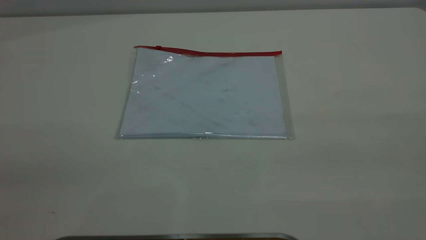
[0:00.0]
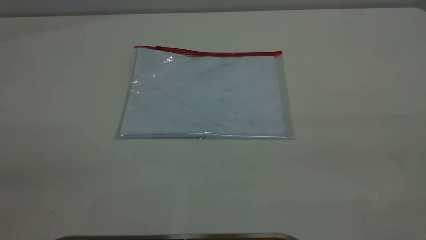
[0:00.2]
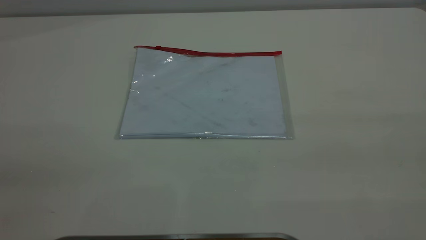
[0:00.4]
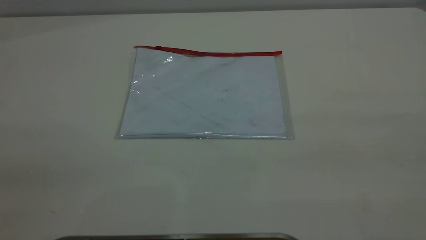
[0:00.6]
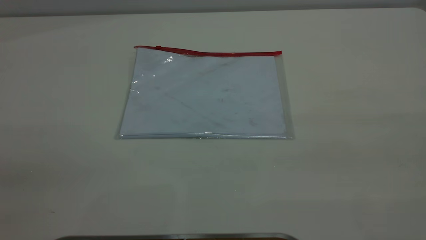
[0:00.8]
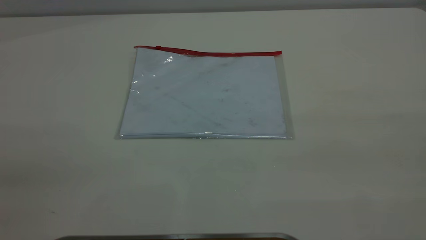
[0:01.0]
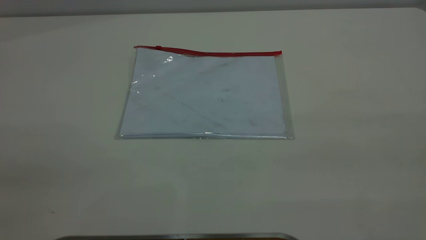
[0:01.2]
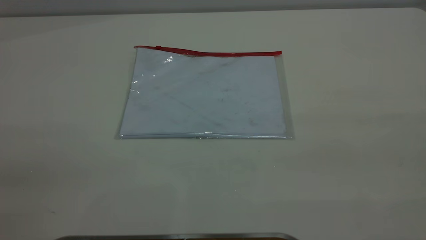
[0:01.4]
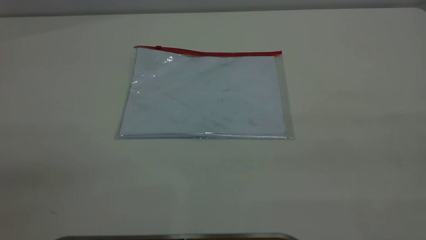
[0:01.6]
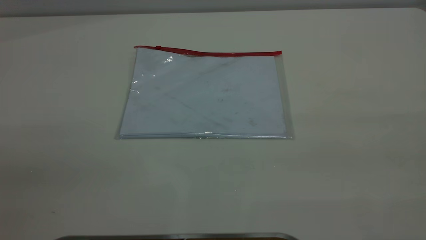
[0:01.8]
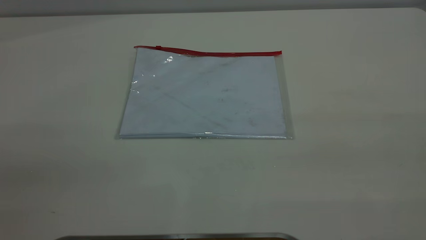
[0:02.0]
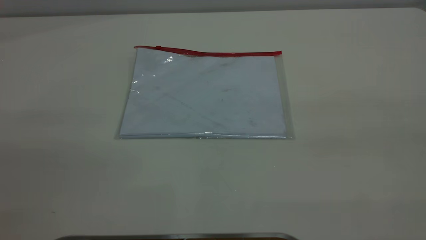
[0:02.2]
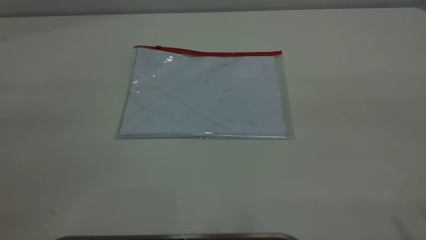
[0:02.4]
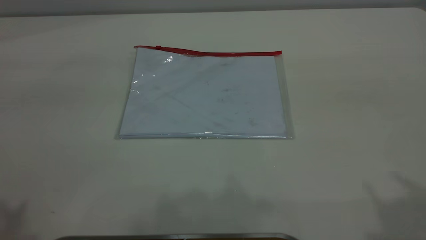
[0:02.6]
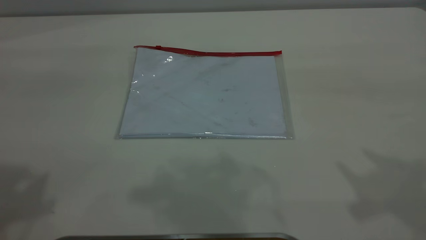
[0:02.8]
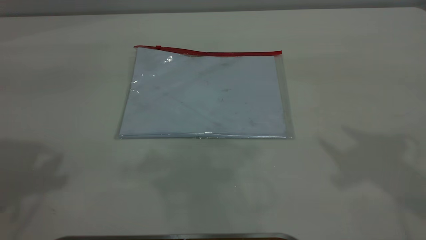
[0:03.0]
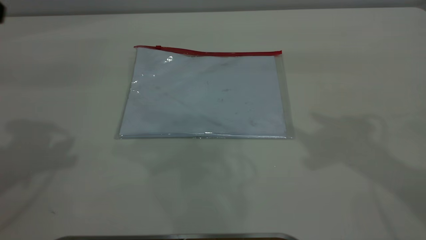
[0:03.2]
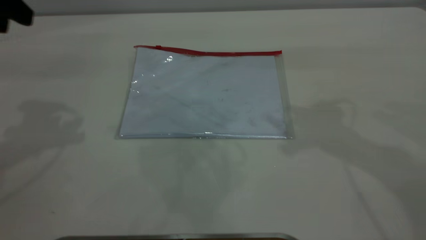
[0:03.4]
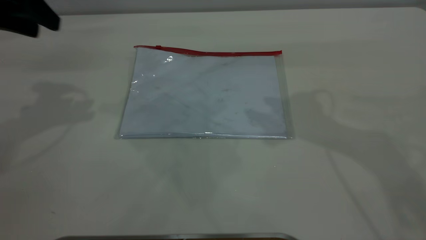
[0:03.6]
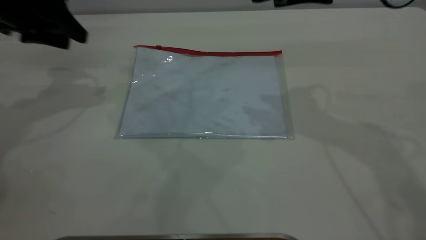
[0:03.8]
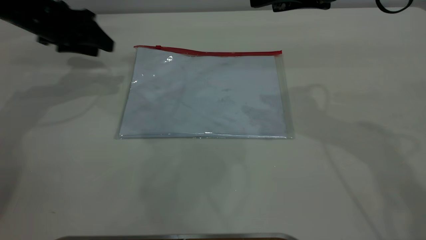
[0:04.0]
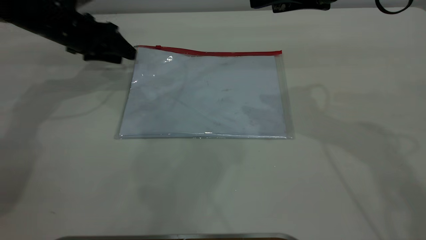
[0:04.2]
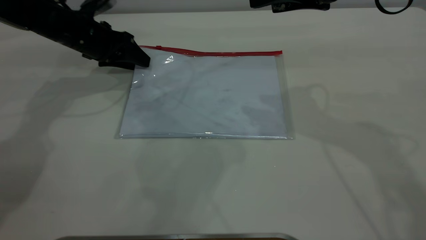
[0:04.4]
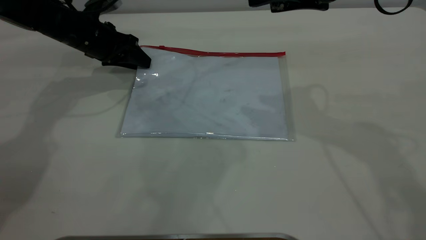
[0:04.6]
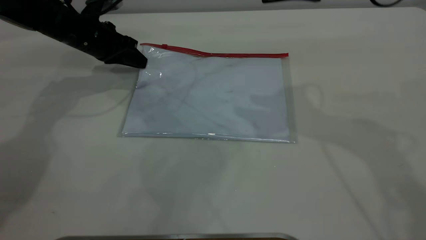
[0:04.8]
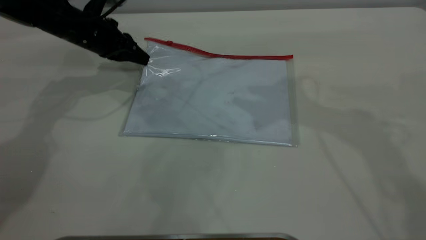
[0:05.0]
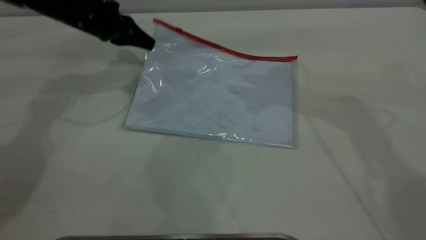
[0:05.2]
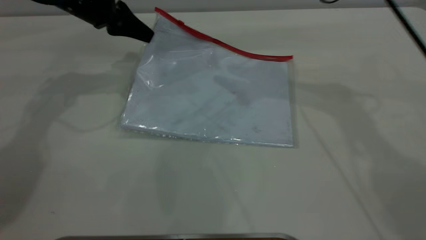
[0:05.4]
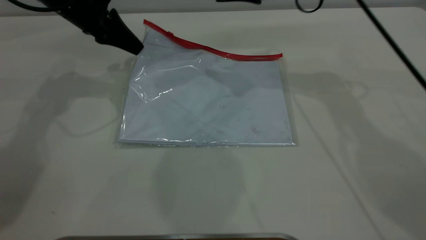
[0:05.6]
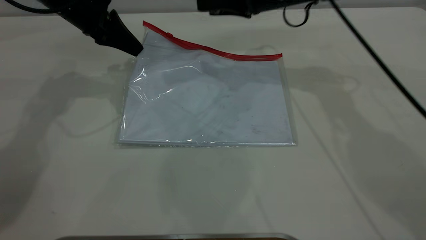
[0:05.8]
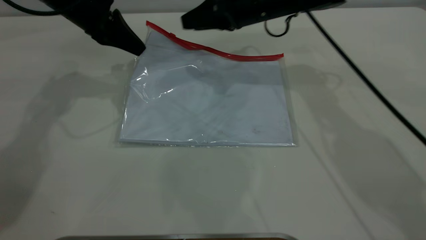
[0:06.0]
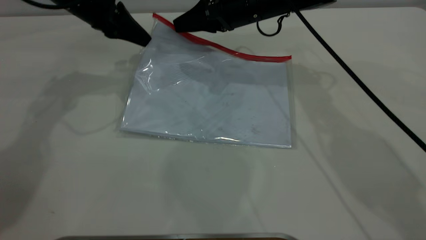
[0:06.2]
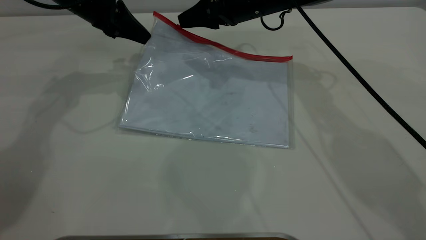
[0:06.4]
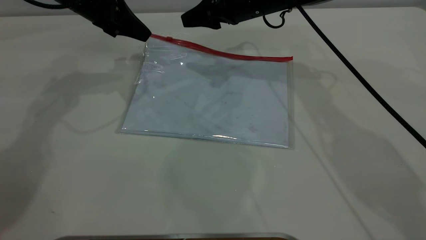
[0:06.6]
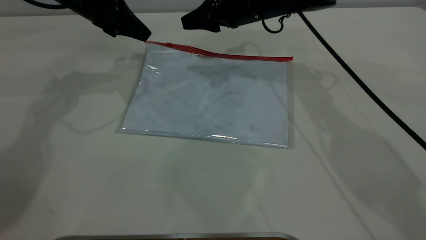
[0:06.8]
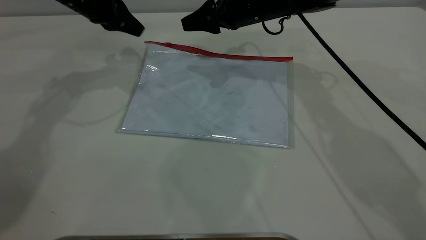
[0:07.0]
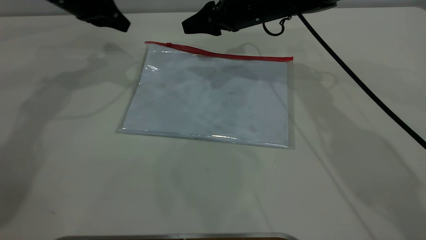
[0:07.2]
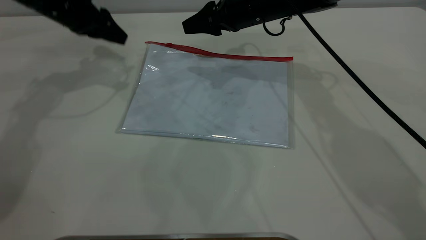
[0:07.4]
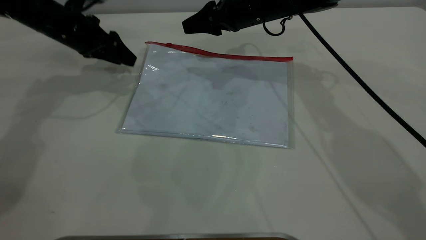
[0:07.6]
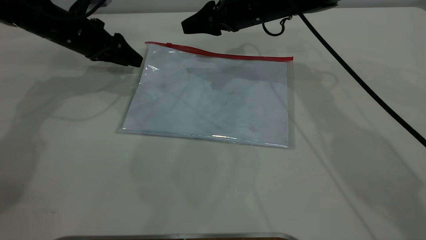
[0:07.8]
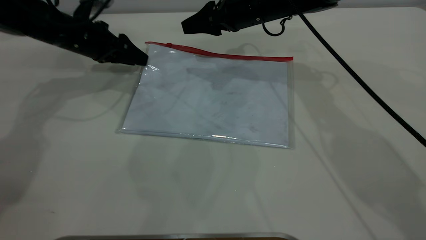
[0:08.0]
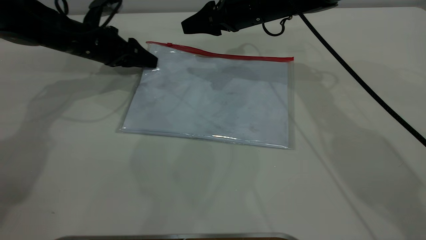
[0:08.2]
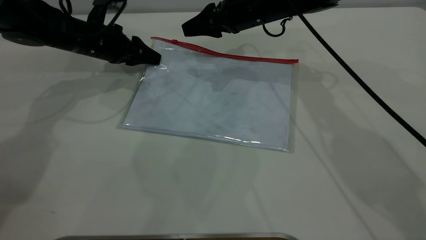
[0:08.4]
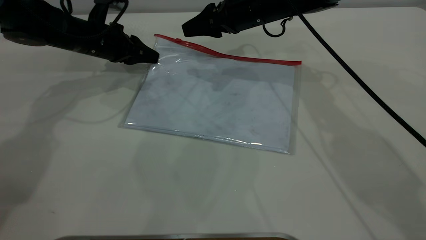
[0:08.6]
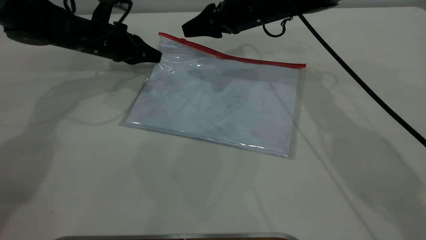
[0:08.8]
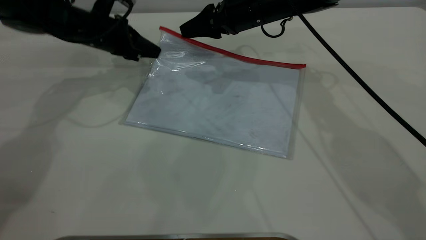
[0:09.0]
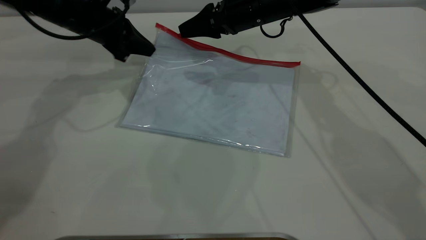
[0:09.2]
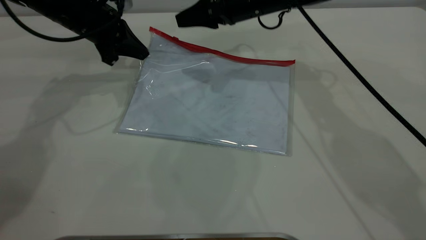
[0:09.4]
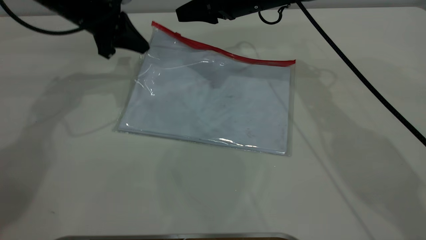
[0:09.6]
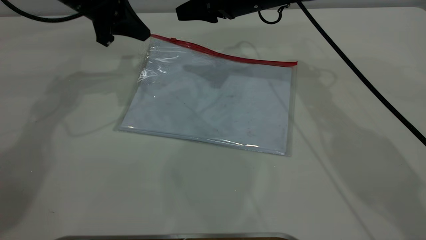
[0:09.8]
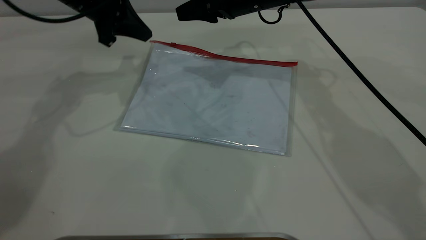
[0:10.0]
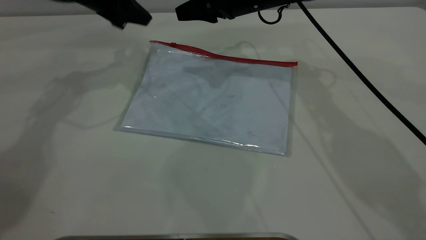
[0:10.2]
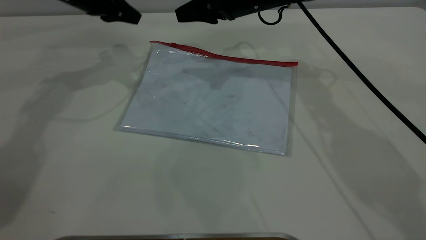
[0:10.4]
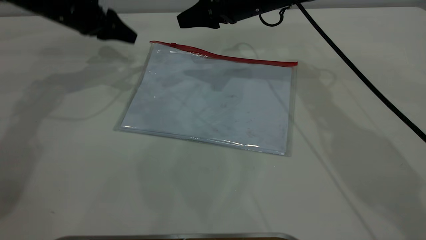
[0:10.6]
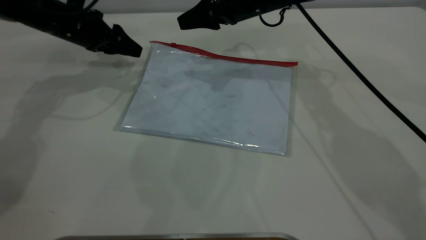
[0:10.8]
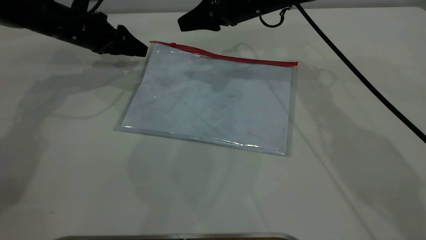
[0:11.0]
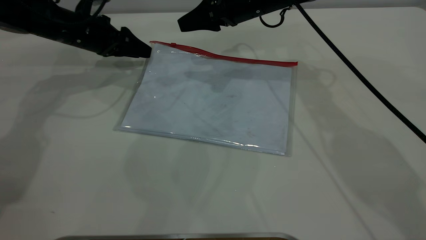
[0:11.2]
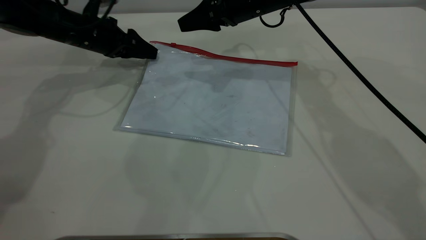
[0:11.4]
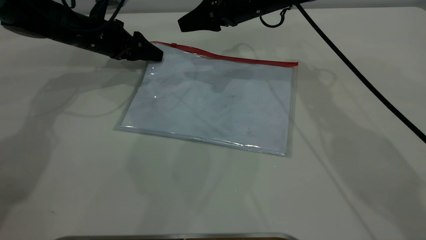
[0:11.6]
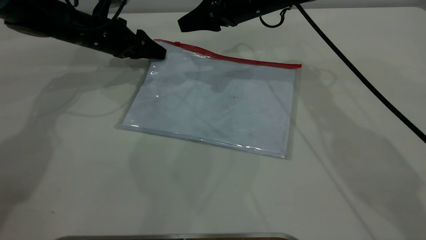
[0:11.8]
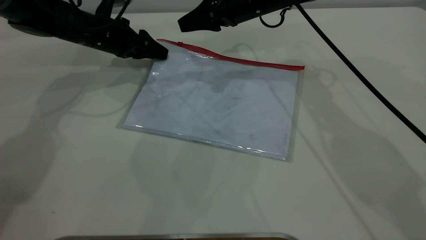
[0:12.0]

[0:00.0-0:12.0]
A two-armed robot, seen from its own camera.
0:00.0 to 0:01.6: The two grippers keep their place.
0:03.0 to 0:04.4: The right gripper is displaced forward, downward and to the left by some 15 cm, while the left gripper is displaced downward and forward by some 35 cm.
0:04.4 to 0:06.0: The left gripper is displaced upward by some 10 cm, and closes its fingers; the right gripper travels forward, downward and to the left by approximately 20 cm.
0:06.0 to 0:07.6: The left gripper moves downward, roughly 5 cm, and opens up.
0:07.6 to 0:09.0: The left gripper closes.
0:09.0 to 0:10.4: The left gripper travels upward by roughly 5 cm, and opens its fingers.
0:10.4 to 0:12.0: The left gripper heads downward, covering some 10 cm, and opens its fingers.

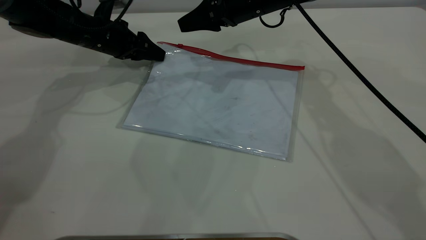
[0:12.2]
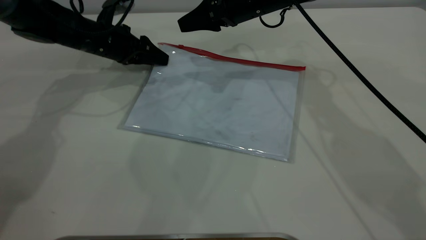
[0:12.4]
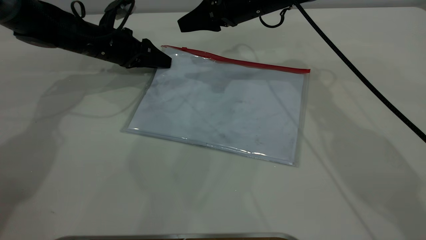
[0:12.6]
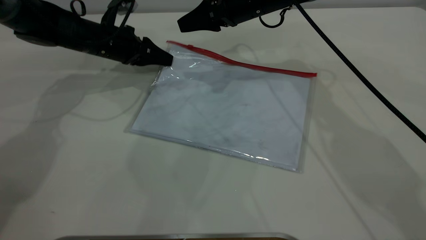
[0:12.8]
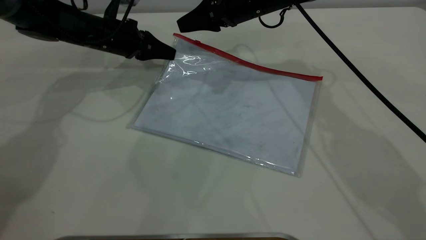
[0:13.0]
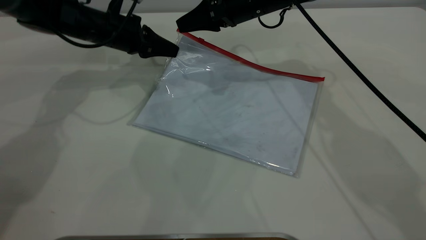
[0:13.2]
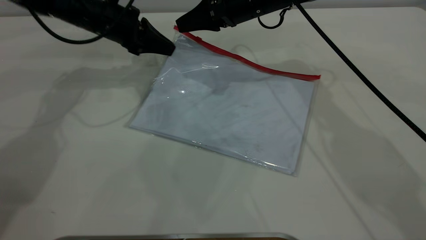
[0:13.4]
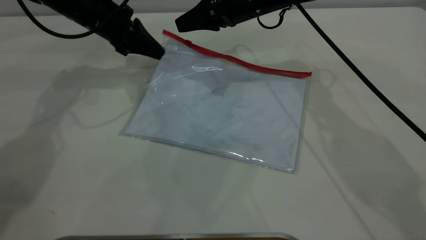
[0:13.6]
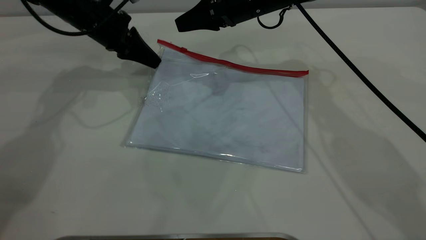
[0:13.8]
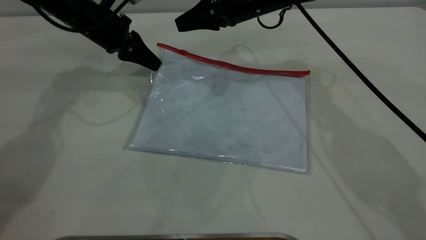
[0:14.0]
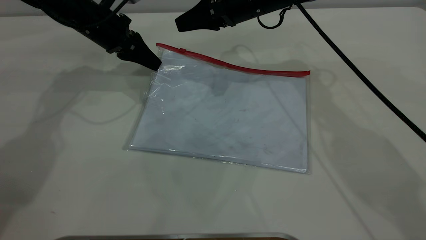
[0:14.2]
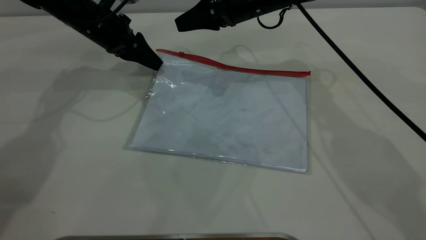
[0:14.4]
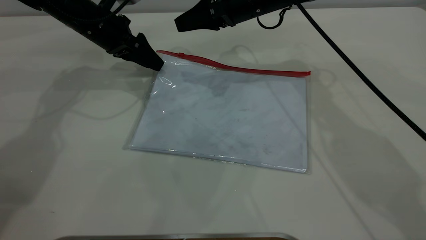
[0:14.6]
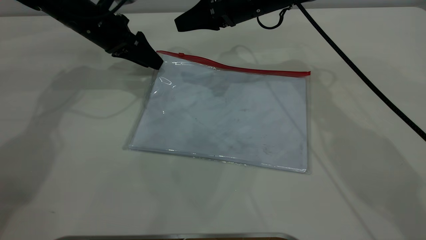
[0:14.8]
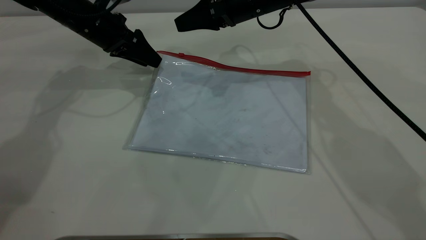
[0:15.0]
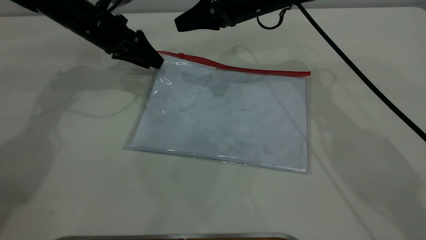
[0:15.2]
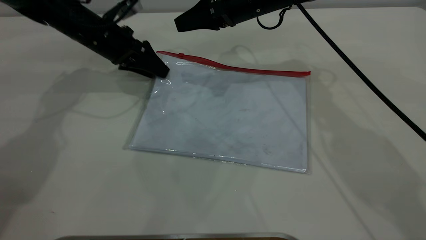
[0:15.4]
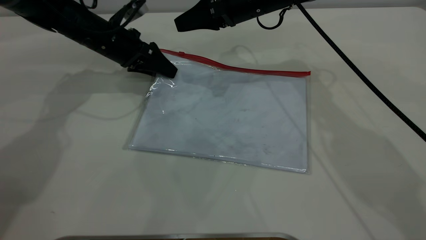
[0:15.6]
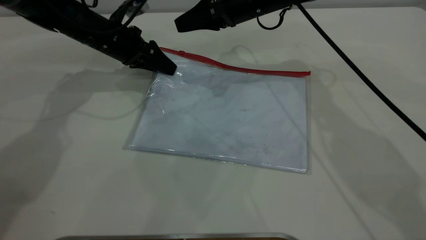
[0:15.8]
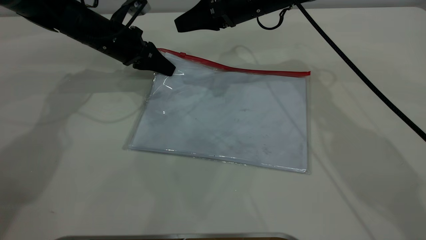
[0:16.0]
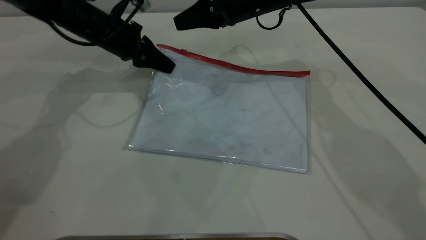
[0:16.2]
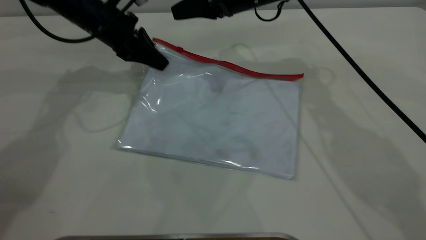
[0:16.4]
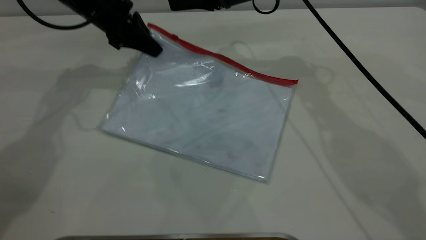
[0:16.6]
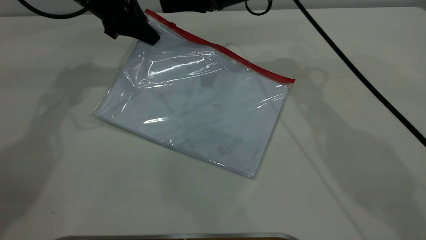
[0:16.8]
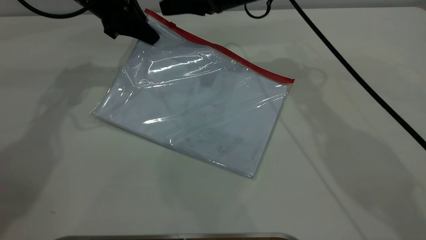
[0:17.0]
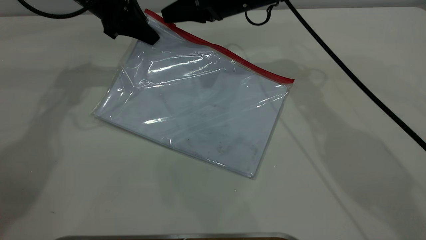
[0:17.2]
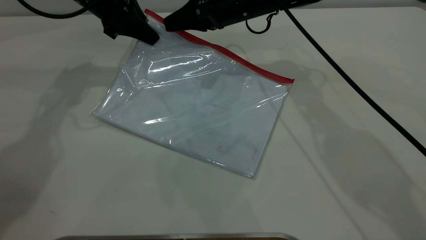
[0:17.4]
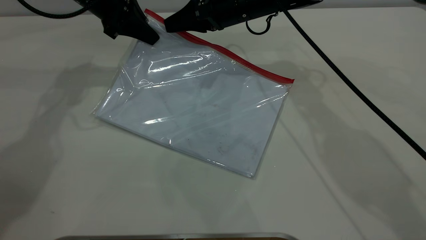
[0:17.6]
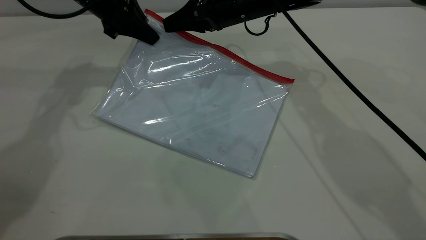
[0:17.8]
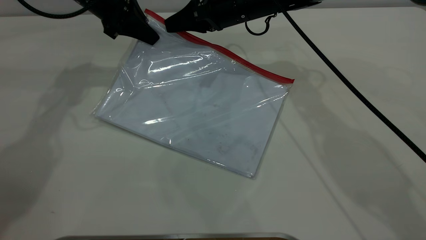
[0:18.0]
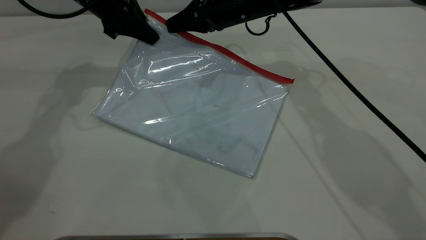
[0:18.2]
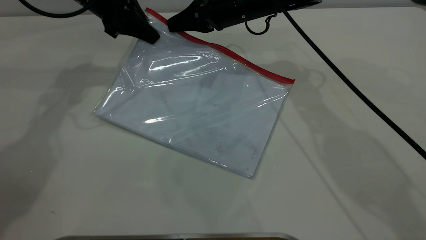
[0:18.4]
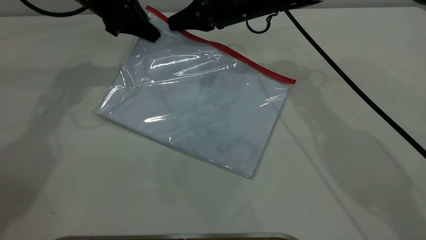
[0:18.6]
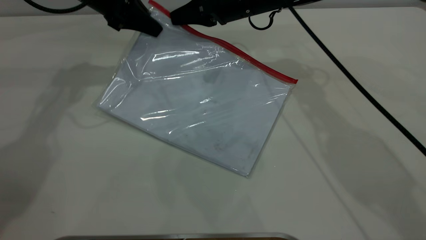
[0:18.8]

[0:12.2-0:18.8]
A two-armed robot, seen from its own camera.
Step, 0:12.2 to 0:16.8: Pick up the transparent plastic bag with the left gripper.
0:12.2 to 0:13.8: The left gripper closes.
0:13.8 to 0:15.4: The left gripper opens.
0:15.4 to 0:17.2: The left gripper shifts some 10 cm upward, and closes.
0:17.2 to 0:18.8: The right gripper closes.
